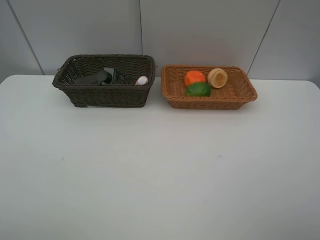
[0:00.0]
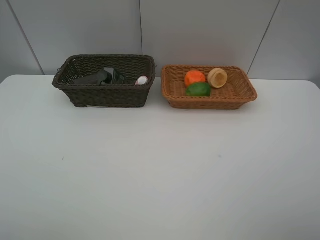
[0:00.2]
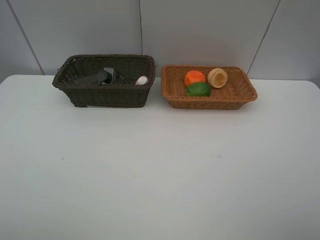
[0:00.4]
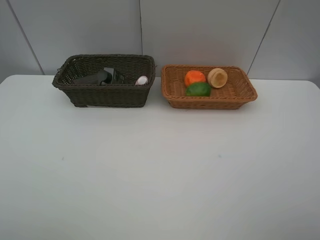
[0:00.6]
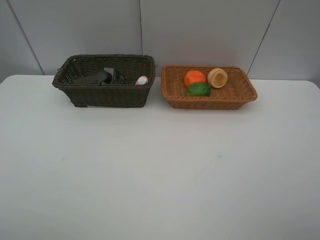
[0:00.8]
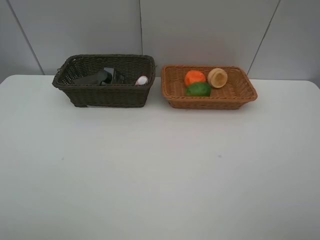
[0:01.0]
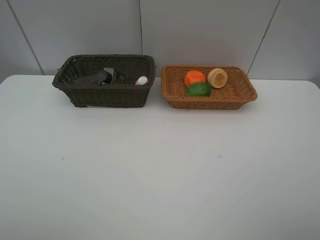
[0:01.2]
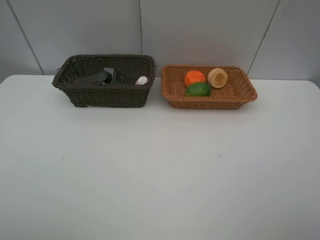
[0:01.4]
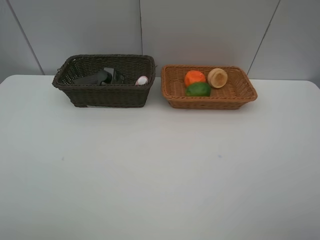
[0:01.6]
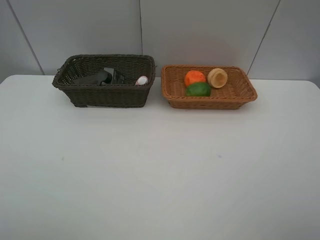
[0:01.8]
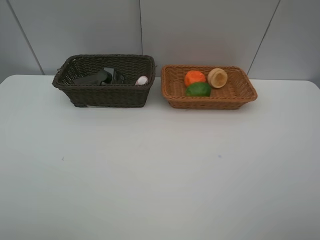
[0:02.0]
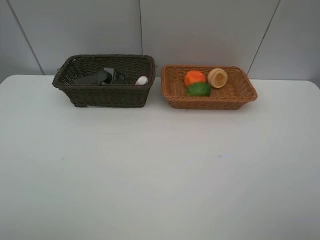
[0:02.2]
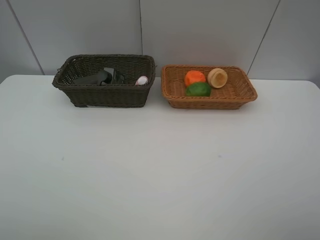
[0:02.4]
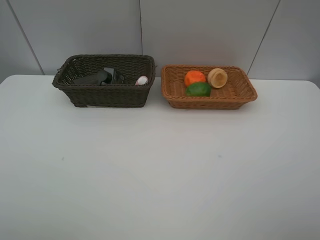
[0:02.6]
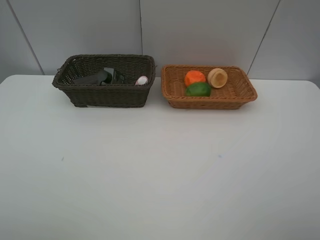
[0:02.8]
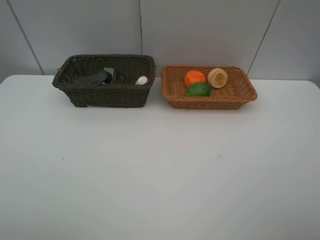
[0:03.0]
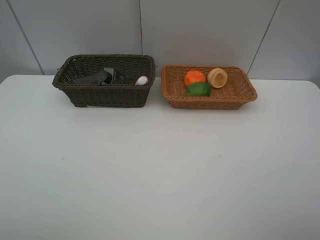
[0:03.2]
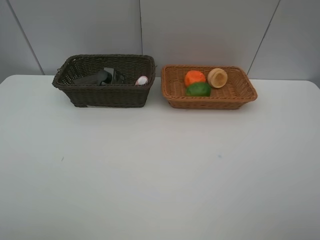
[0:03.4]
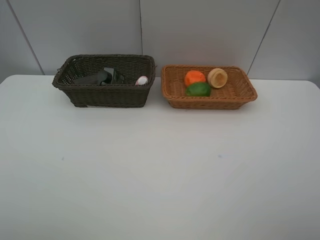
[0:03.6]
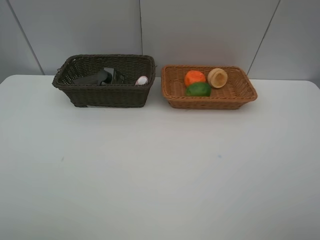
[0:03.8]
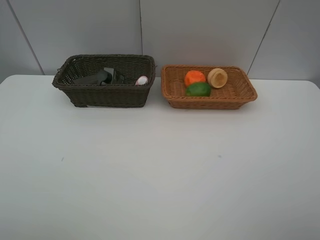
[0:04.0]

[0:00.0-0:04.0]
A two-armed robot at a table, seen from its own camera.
Task of the whole recording: place multiple objects separately in different baskets.
0:01.4 to 0:04.0: Both grippers stay about where they are.

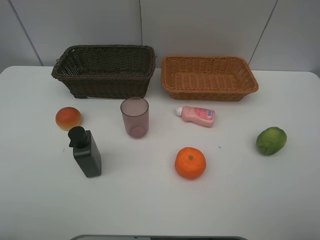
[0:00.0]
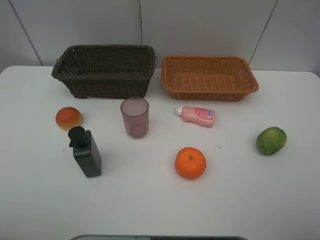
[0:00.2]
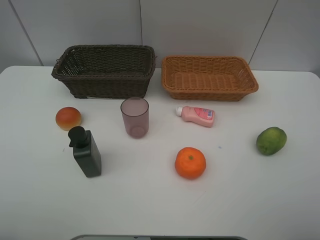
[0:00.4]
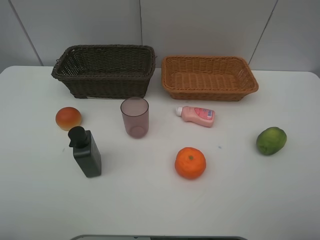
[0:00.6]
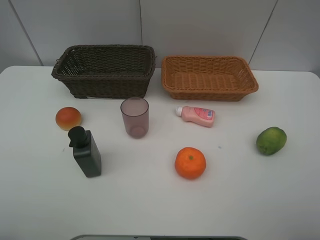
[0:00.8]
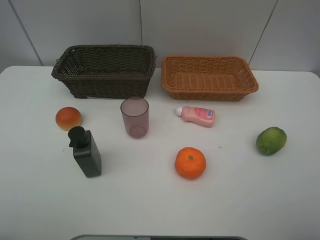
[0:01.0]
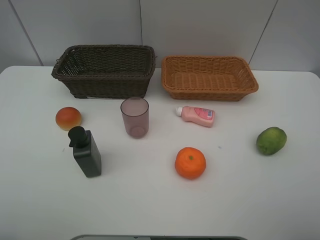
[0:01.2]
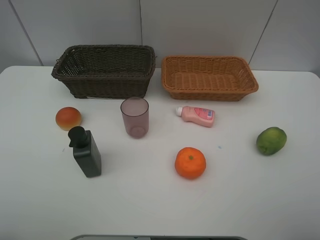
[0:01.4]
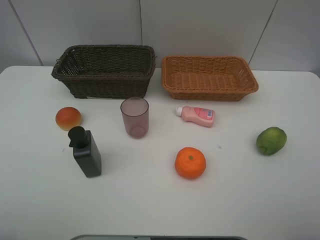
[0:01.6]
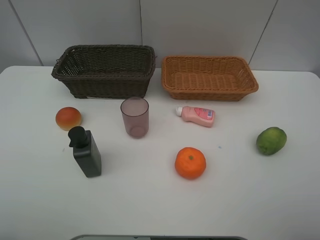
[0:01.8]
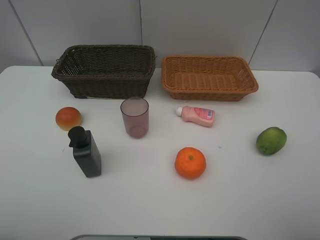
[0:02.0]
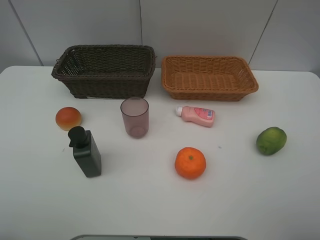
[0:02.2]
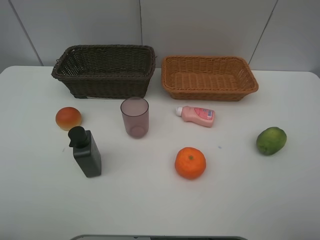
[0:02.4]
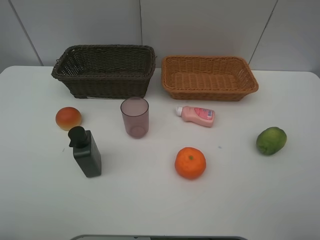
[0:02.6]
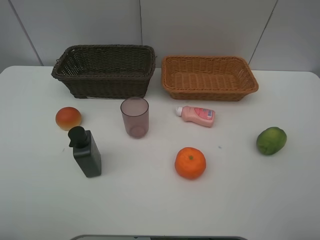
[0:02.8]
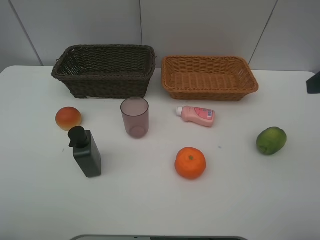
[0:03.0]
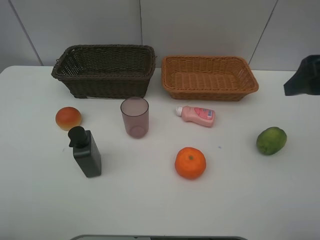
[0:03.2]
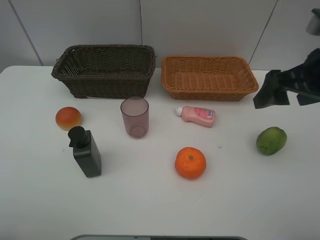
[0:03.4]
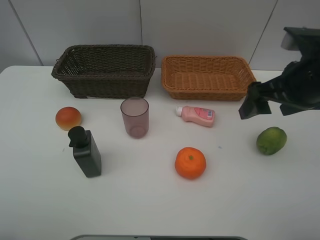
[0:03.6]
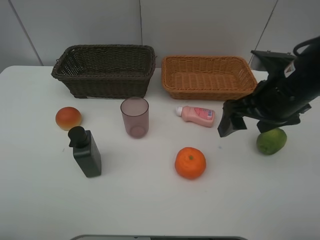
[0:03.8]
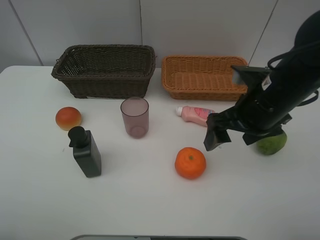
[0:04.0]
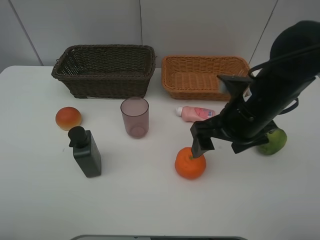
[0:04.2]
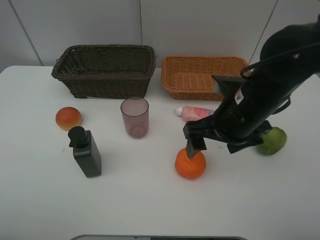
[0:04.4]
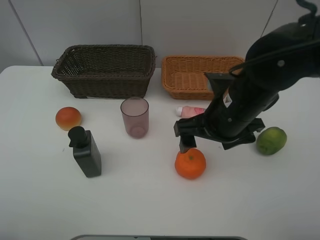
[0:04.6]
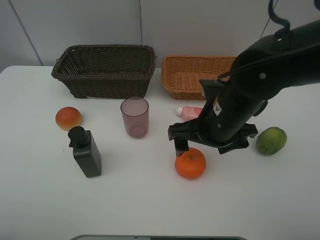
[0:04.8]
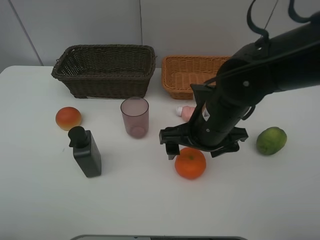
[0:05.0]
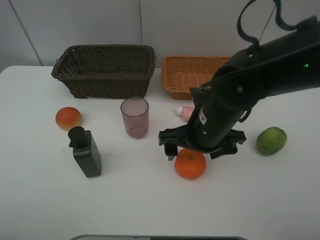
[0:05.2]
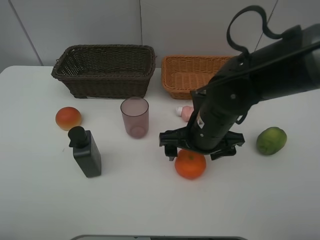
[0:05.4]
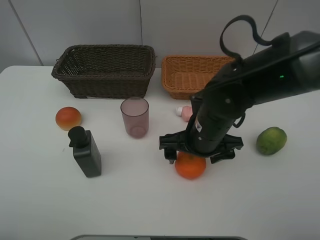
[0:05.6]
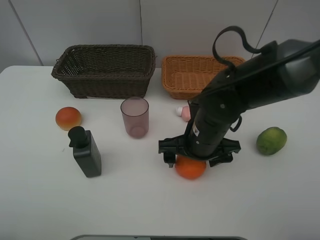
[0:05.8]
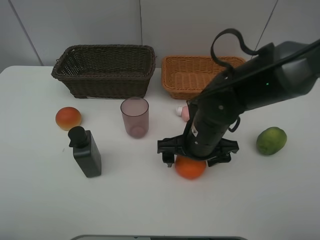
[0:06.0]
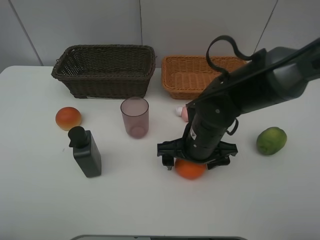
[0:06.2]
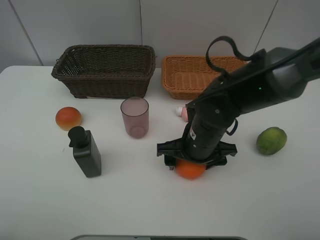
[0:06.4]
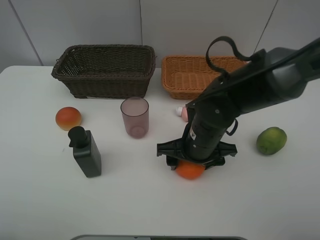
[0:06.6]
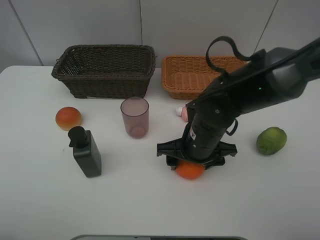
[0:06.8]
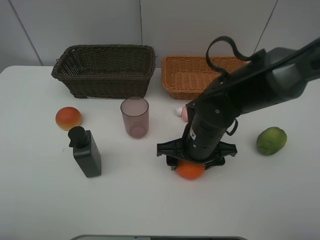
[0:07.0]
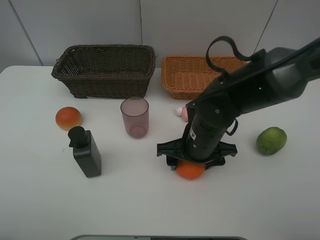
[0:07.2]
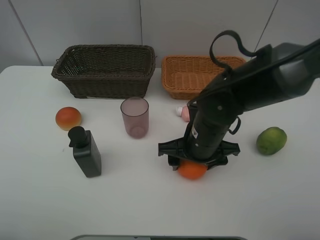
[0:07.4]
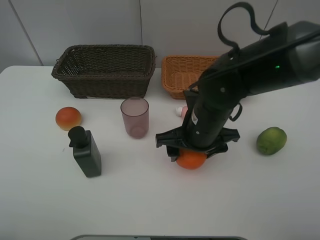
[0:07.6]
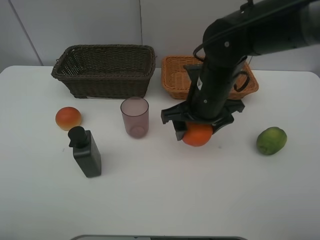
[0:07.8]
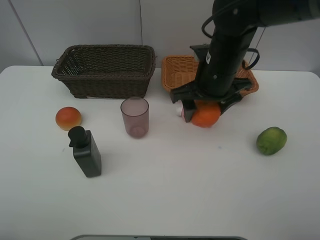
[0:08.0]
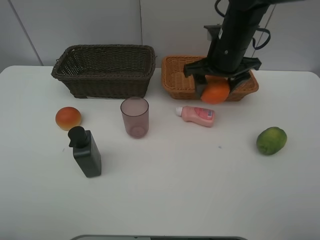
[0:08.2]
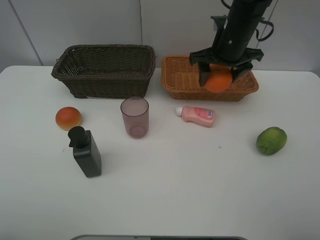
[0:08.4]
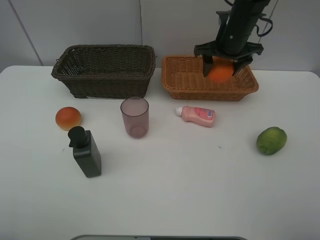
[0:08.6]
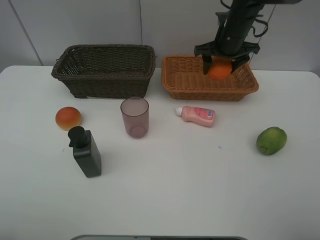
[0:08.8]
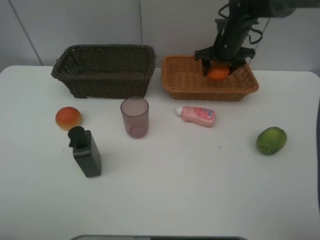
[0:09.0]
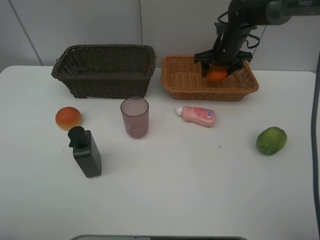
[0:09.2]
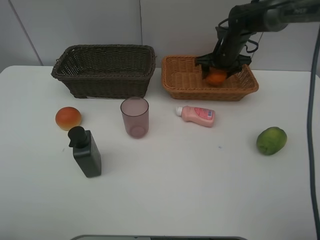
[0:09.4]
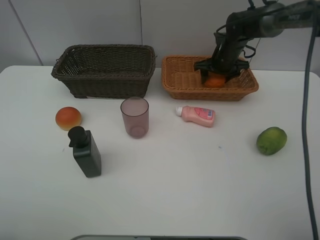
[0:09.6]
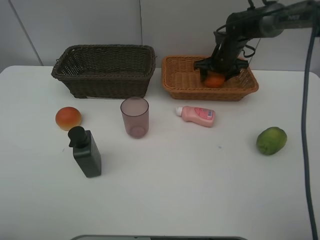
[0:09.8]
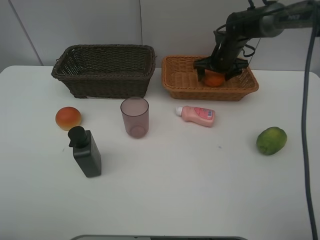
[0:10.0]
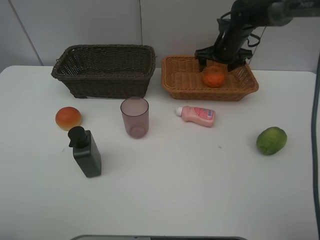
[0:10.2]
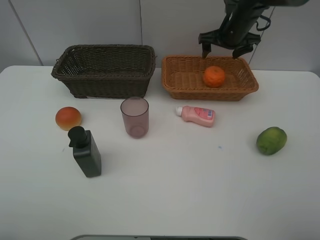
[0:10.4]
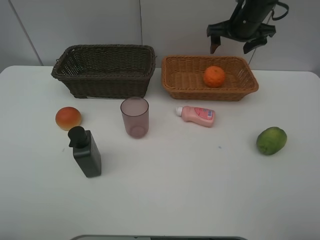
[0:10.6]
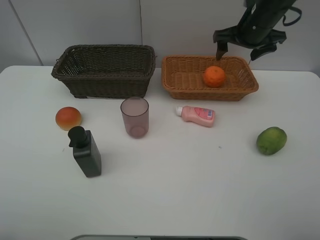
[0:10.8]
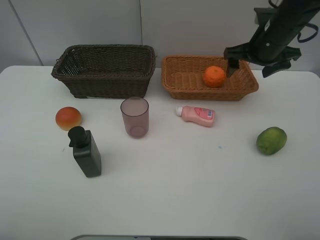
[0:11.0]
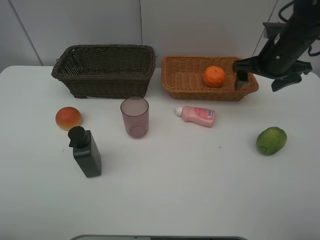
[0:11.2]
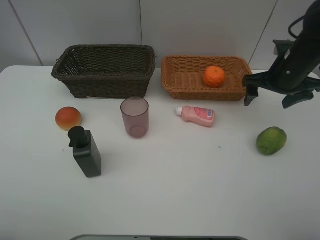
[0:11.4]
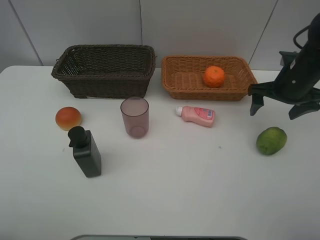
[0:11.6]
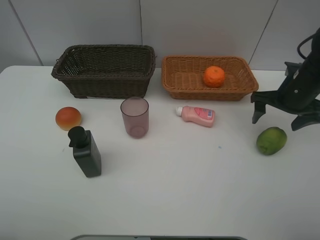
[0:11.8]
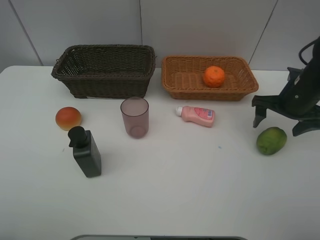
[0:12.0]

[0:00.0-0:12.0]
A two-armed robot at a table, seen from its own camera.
Task of the whole recording: place multiple objects separately in different baskets.
0:00.0 to 0:01.6: Both grippers stay put.
0:03.0 to 0:04.4: The right gripper goes roughly 20 cm to the left, downward and forward.
0:04.4 to 0:06.0: The right gripper heads downward, covering approximately 5 cm.
0:06.0 to 0:07.6: The right gripper closes up.
0:07.6 to 0:09.0: The right gripper moves forward and to the right, about 25 cm.
0:09.0 to 0:10.4: The right gripper opens its fingers.
0:10.4 to 0:12.0: The right gripper moves backward and to the right, approximately 20 cm.

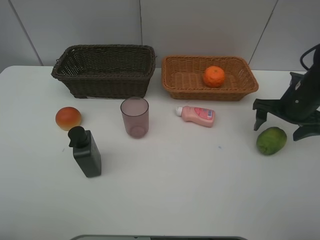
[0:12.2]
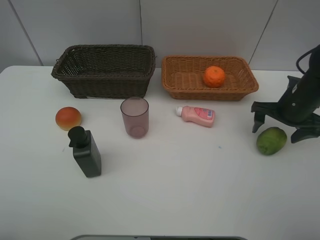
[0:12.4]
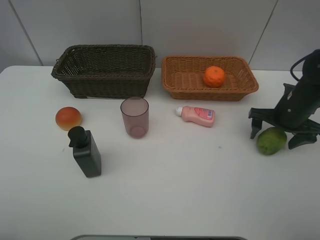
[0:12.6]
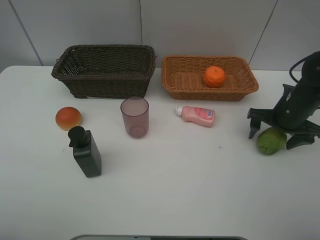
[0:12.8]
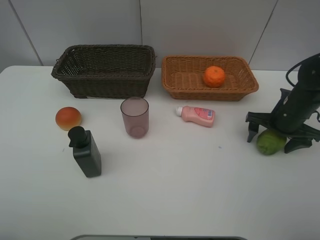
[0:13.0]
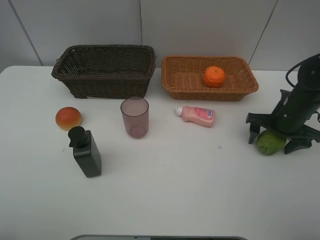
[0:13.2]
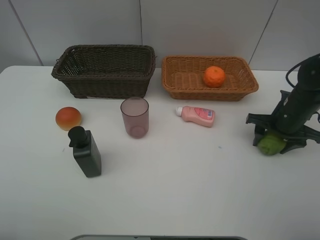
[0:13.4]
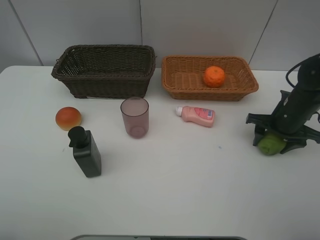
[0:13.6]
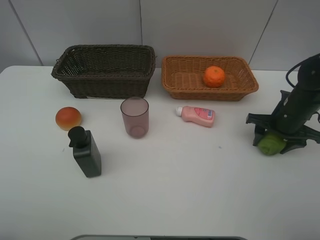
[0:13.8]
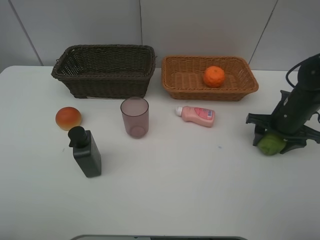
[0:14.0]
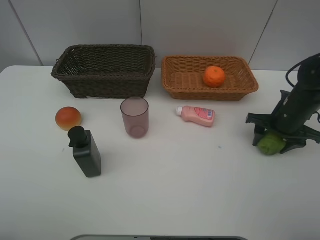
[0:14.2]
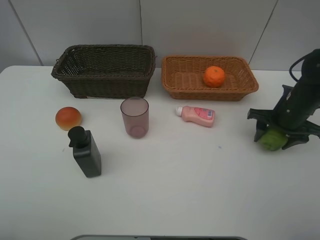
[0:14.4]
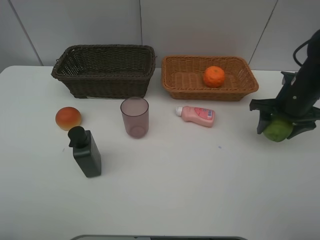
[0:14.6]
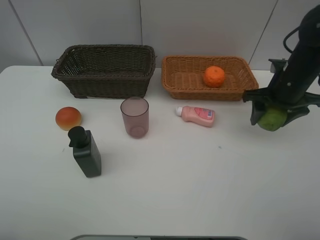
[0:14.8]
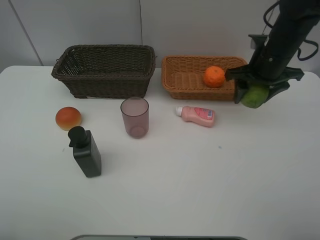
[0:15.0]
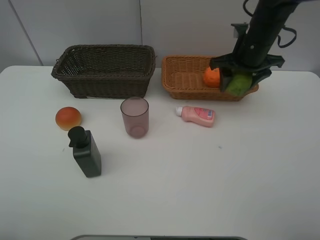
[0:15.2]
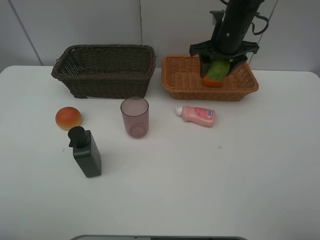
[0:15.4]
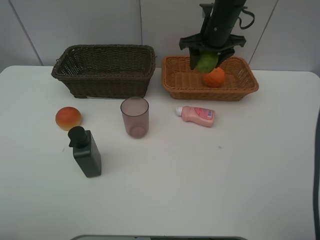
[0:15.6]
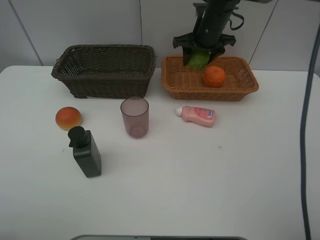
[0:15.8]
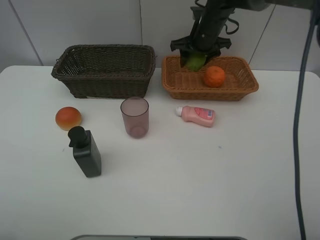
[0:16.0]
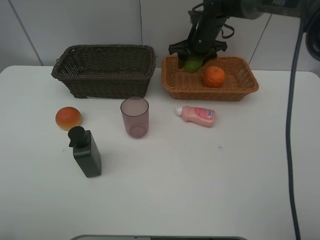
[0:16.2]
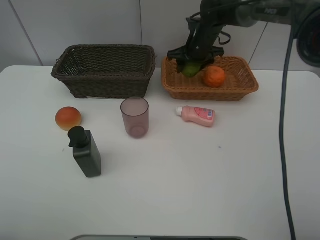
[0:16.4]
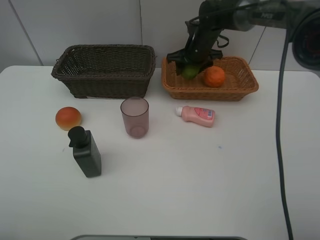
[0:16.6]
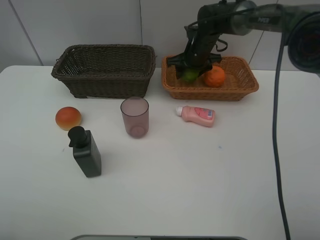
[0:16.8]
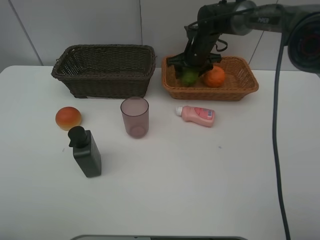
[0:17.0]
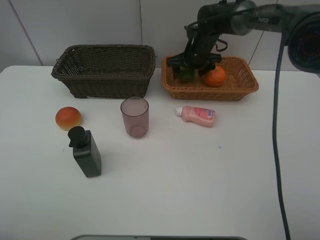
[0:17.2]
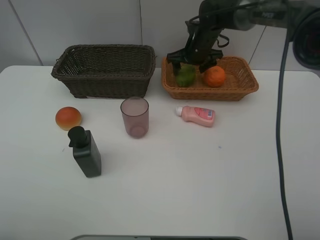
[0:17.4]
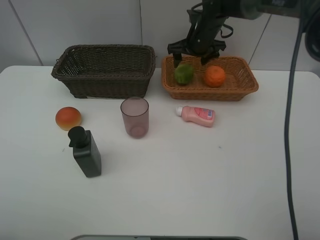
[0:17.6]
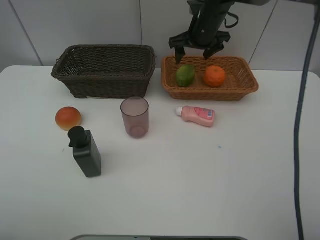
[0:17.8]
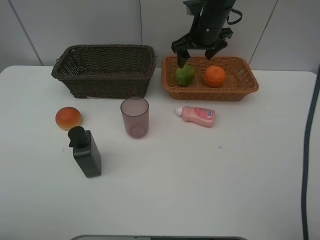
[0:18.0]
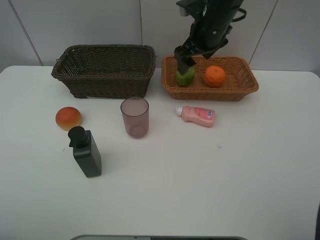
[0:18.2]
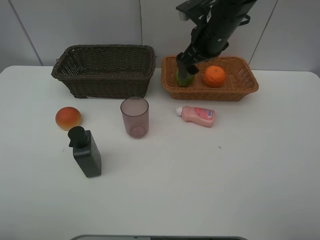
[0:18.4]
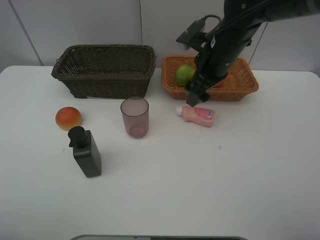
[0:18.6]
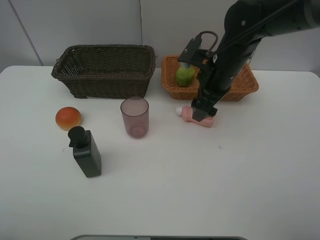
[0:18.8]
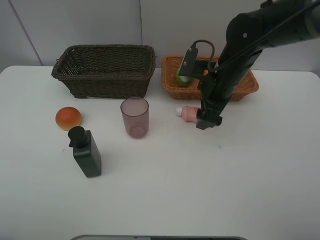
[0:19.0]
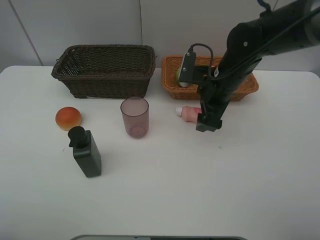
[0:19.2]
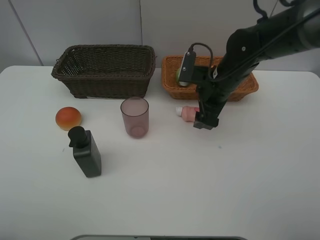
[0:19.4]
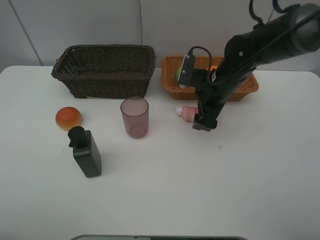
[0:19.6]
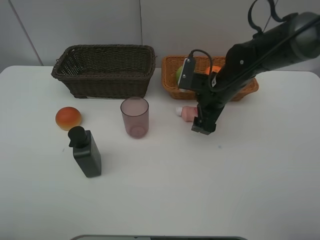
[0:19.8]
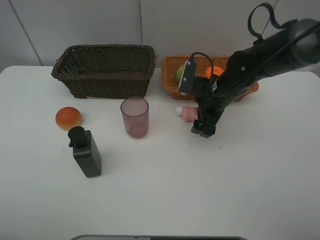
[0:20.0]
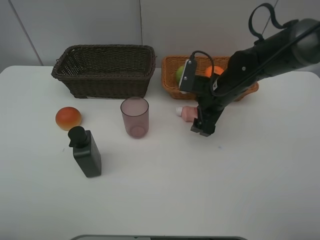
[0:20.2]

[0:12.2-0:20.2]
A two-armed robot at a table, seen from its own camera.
Task of the whole recording: place multiple objects separately in different baskets.
0:12.2 to 0:13.8: The right gripper closes.
0:13.8 to 0:15.4: The right gripper travels to the left, forward and upward by roughly 25 cm.
0:15.4 to 0:17.0: The right gripper travels downward and forward by roughly 10 cm.
0:17.0 to 0:18.6: The right gripper is displaced backward by roughly 15 cm.
0:18.6 to 0:20.2: The right gripper shifts some 10 cm downward.
